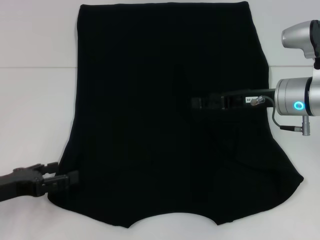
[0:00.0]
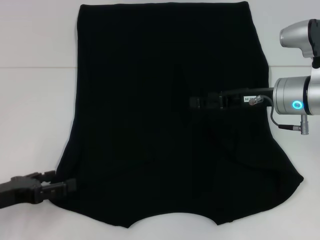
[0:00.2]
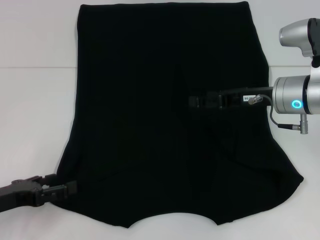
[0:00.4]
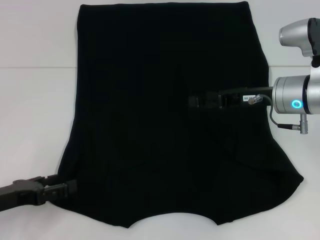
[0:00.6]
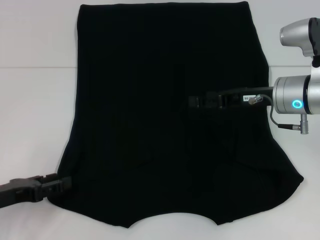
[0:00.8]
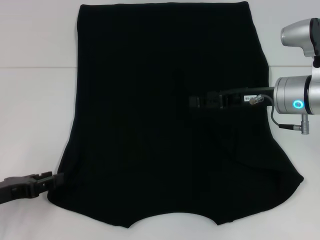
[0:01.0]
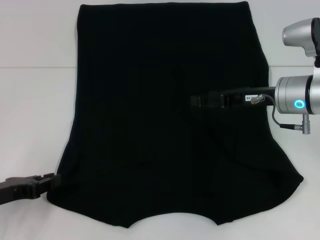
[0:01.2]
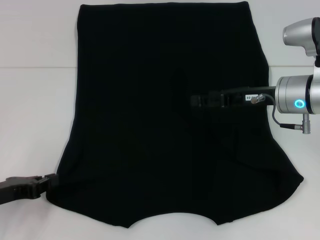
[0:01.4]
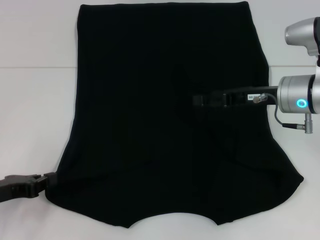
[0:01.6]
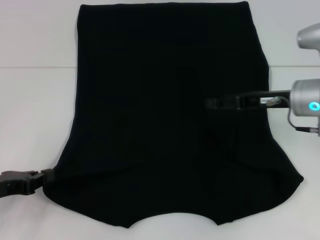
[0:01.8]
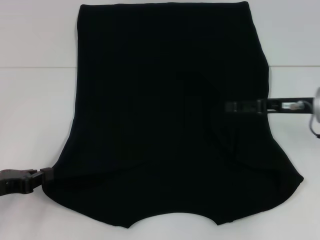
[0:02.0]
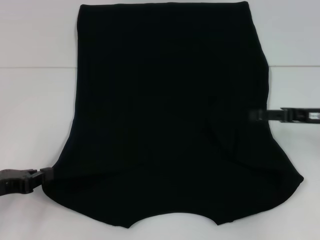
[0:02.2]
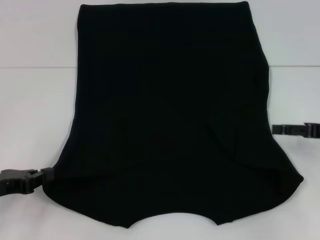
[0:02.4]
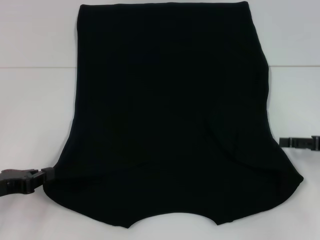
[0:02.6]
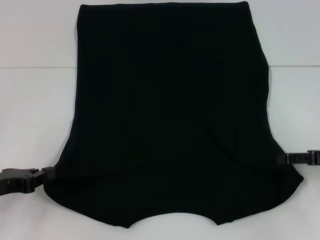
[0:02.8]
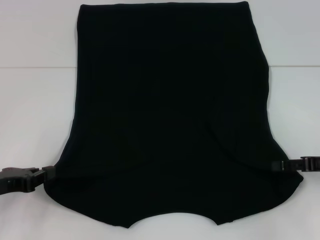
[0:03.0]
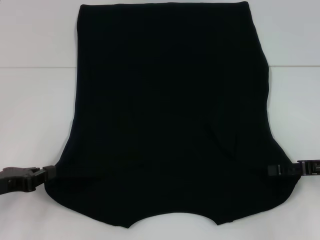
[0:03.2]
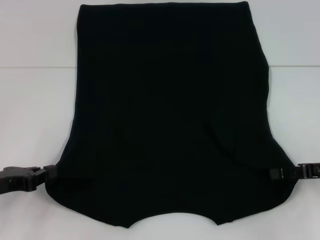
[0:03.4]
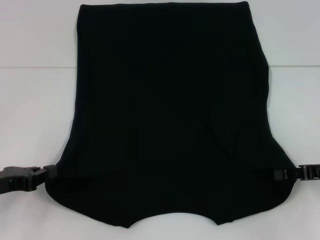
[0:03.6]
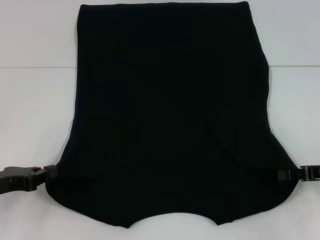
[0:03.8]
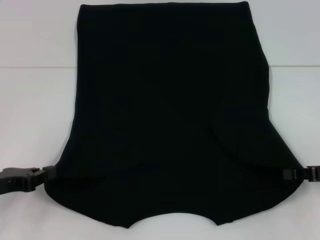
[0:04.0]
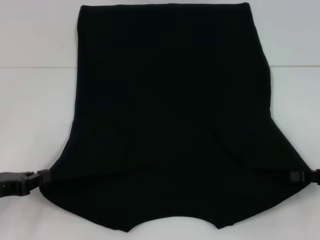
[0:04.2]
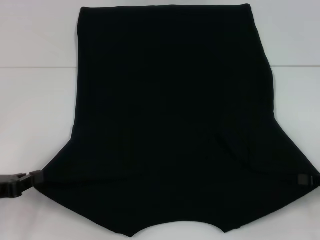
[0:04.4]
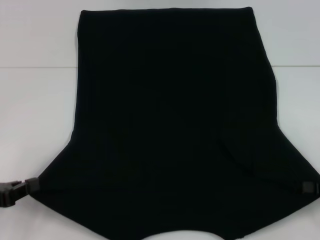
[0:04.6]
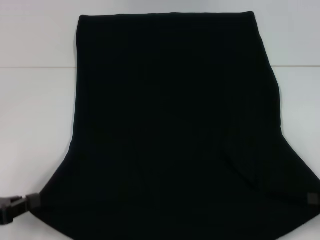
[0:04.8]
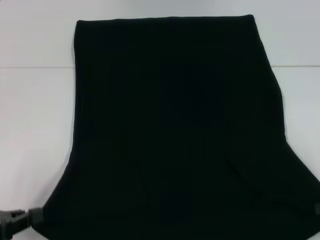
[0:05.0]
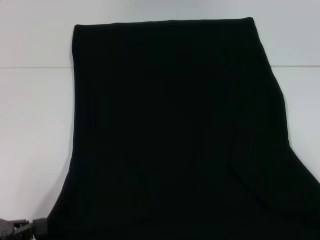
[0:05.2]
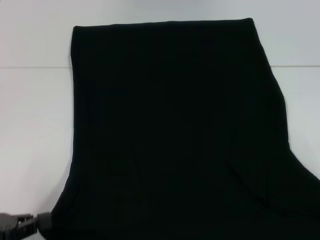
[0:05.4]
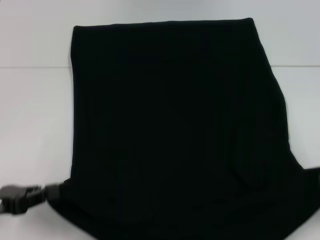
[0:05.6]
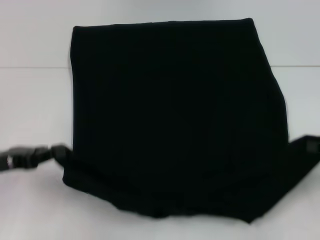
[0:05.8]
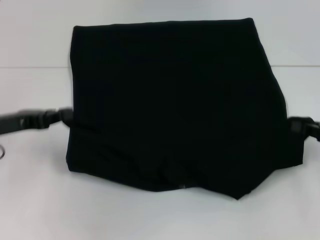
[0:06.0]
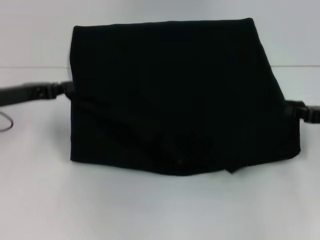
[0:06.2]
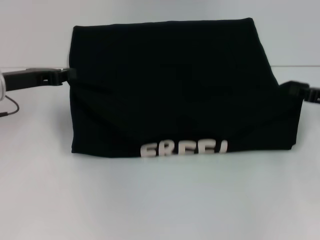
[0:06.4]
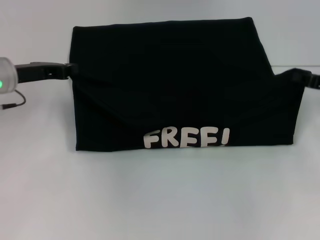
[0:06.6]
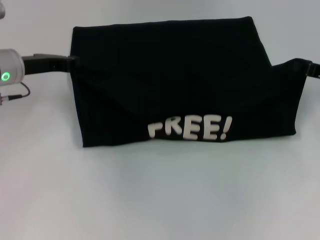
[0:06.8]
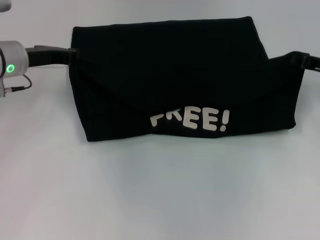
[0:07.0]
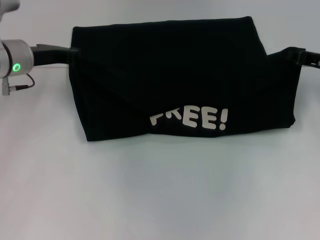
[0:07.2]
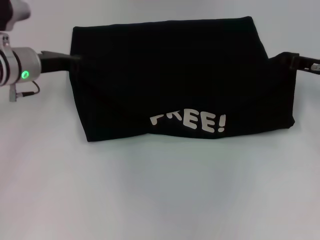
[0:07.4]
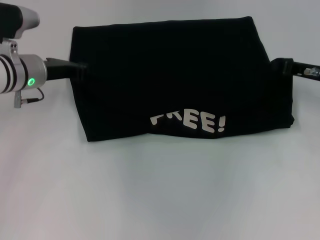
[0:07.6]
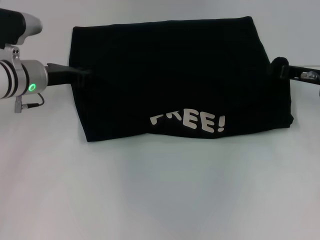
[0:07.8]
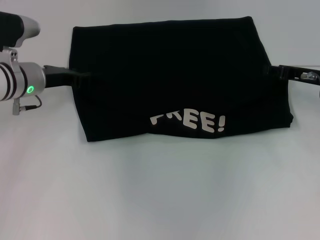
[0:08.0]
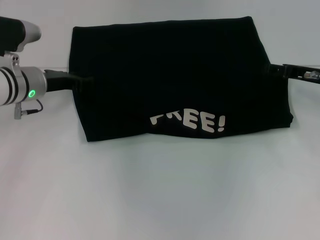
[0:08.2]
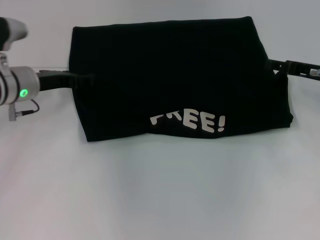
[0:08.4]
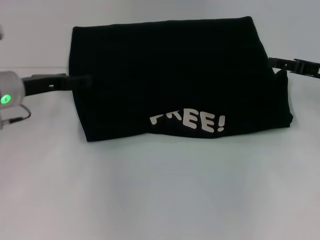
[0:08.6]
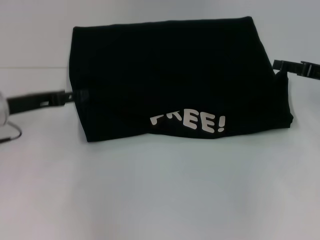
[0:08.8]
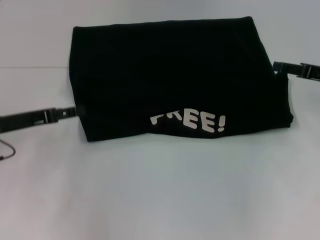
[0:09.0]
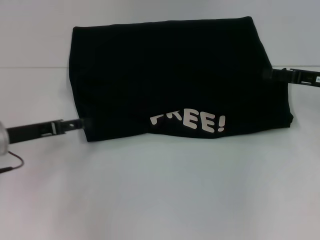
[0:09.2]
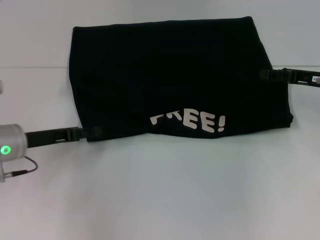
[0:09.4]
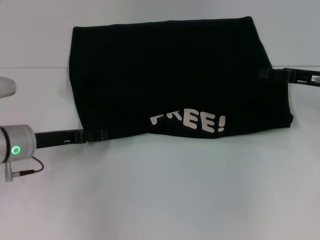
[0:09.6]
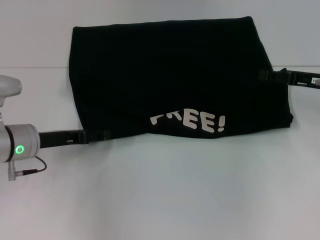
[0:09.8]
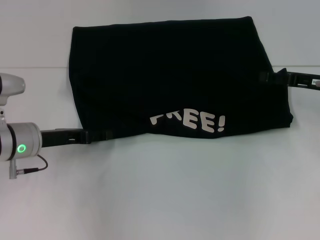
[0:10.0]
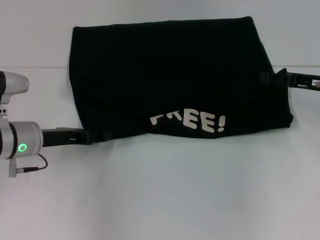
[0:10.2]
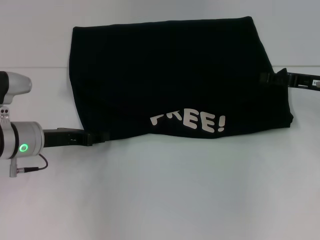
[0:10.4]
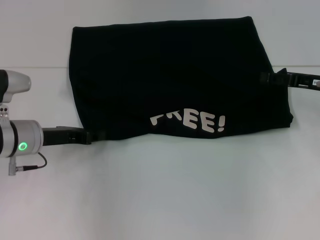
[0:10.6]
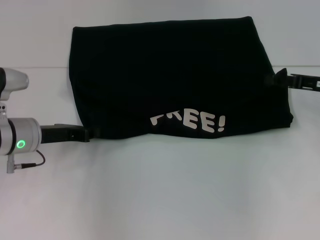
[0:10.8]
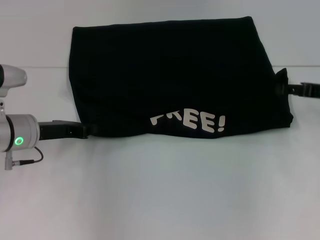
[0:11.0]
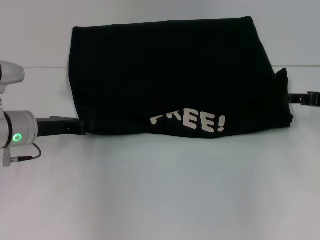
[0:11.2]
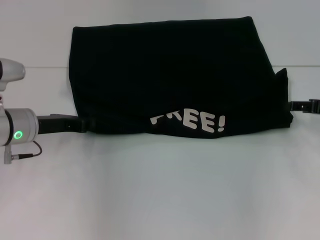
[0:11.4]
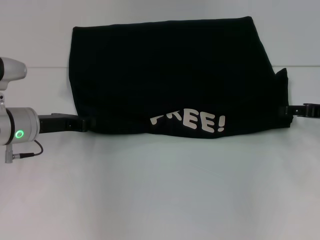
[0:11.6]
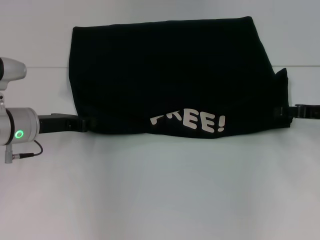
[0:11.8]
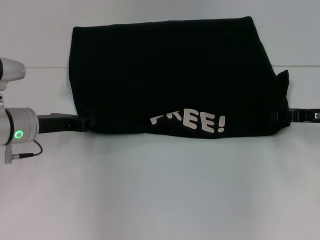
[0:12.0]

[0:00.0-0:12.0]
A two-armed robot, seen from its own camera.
Step, 0:00.0 to 0:02.2: Grab the bottom left corner with your left hand.
Step, 0:02.4 to 0:04.4: Grab the bottom right corner with your right hand.
Step, 0:04.6 to 0:08.4: Fold the clothes with your left hand.
Step, 0:04.6 to 0:08.4: Fold the clothes with your right hand.
0:00.0 to 0:01.6: The left gripper closes.
0:01.6 to 0:03.0: The right gripper goes approximately 15 cm to the right, backward and downward.
0:03.0 to 0:04.4: The right gripper closes up.
0:04.4 to 0:06.0: The left gripper moves forward and upward, approximately 10 cm.
0:06.0 to 0:07.6: The left gripper heads forward and to the right, covering about 15 cm; the right gripper travels forward and to the left by some 15 cm.
0:07.6 to 0:09.0: The left gripper heads backward and to the left, covering about 10 cm, and opens. The right gripper opens up.
0:09.0 to 0:10.4: The left gripper goes about 5 cm to the right.
0:10.4 to 0:12.0: The left gripper closes up.

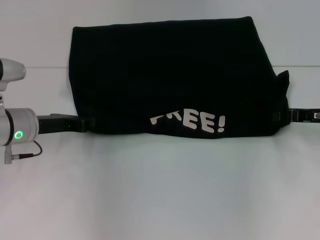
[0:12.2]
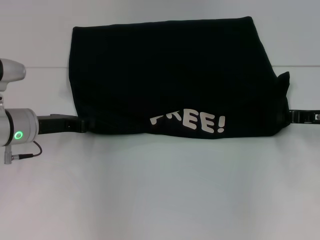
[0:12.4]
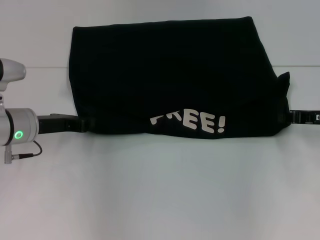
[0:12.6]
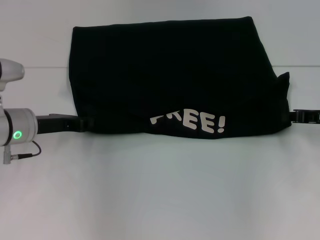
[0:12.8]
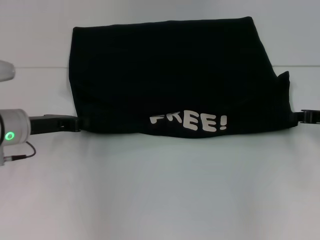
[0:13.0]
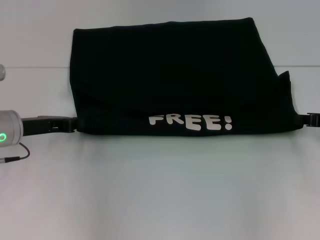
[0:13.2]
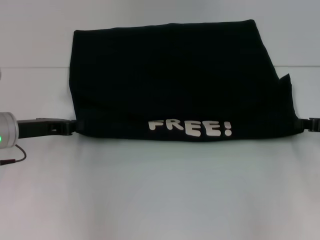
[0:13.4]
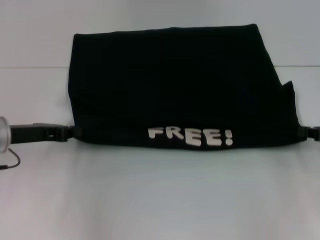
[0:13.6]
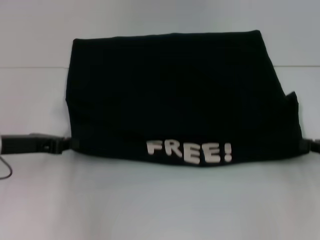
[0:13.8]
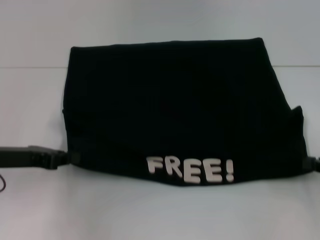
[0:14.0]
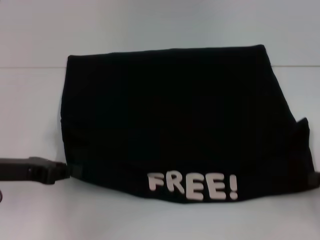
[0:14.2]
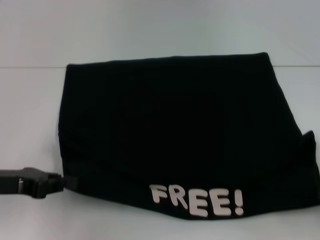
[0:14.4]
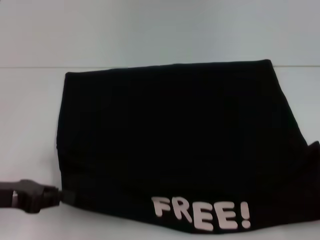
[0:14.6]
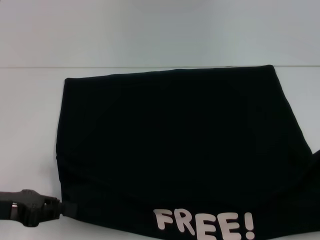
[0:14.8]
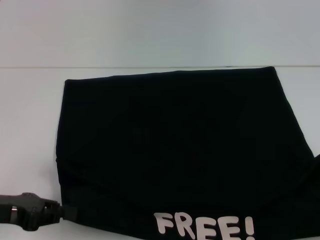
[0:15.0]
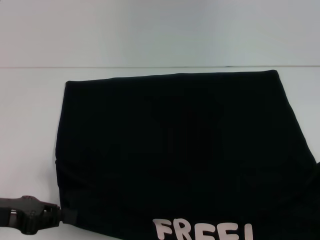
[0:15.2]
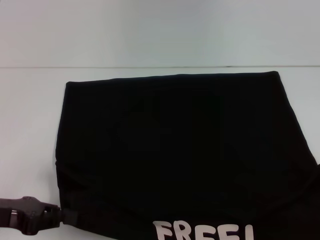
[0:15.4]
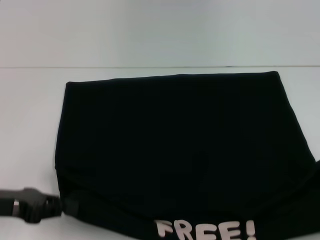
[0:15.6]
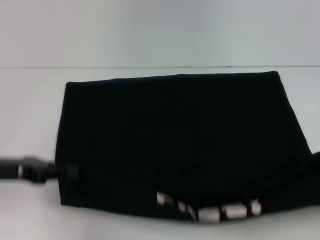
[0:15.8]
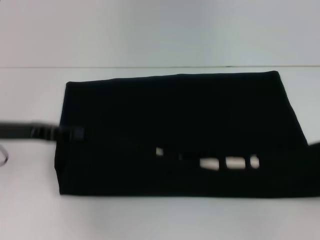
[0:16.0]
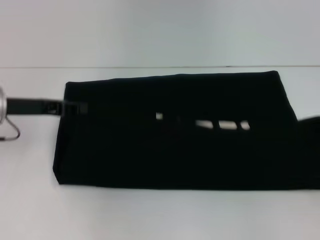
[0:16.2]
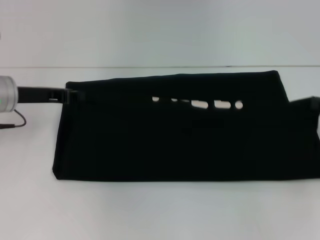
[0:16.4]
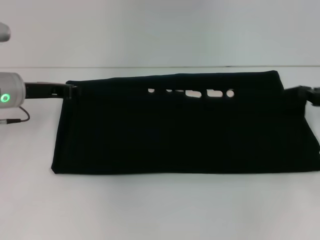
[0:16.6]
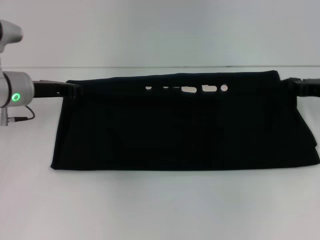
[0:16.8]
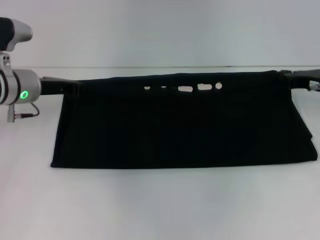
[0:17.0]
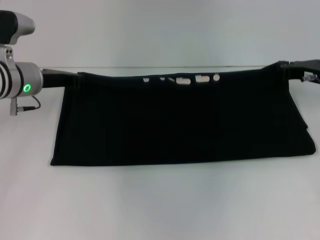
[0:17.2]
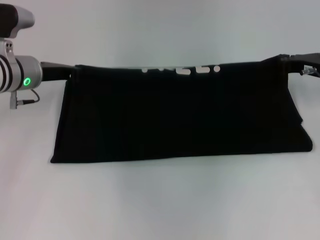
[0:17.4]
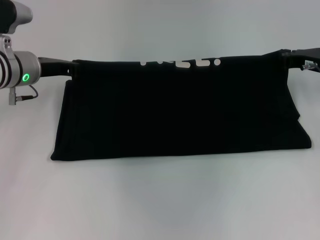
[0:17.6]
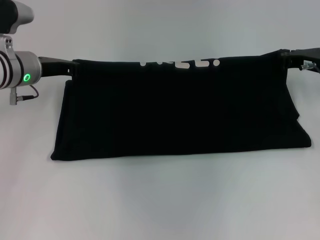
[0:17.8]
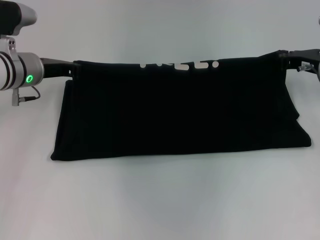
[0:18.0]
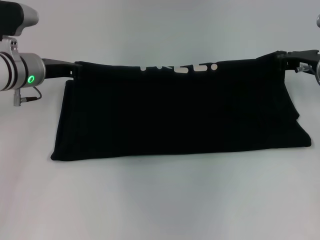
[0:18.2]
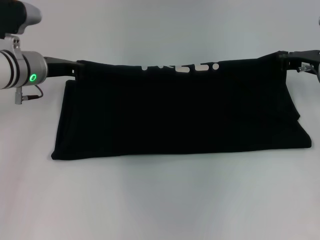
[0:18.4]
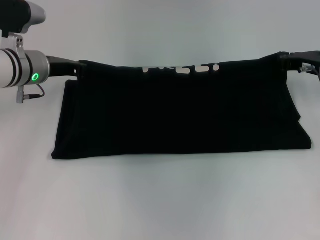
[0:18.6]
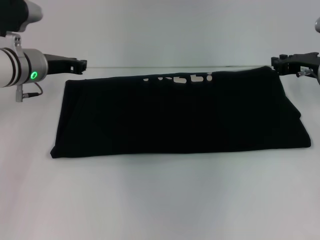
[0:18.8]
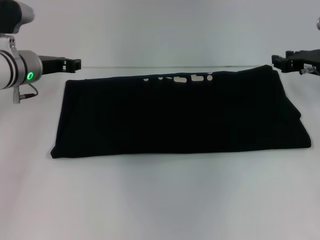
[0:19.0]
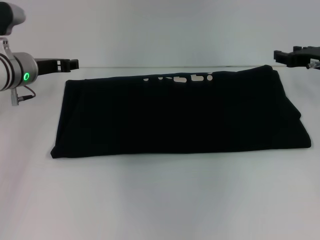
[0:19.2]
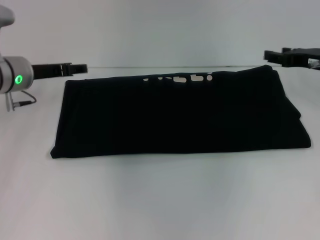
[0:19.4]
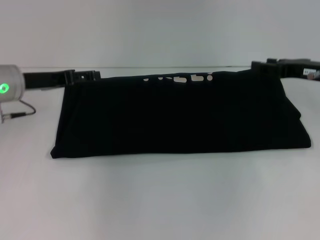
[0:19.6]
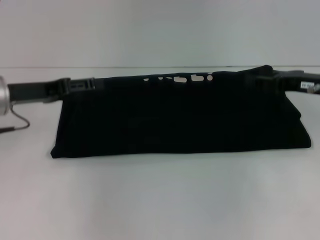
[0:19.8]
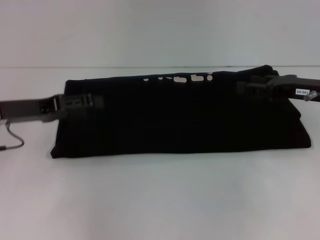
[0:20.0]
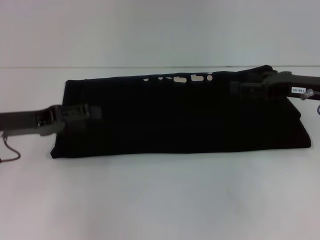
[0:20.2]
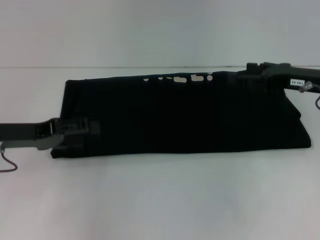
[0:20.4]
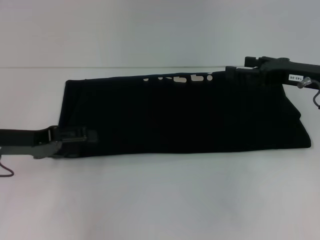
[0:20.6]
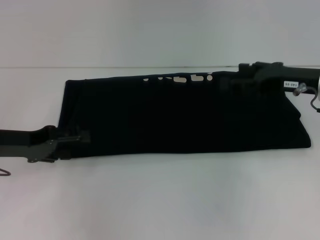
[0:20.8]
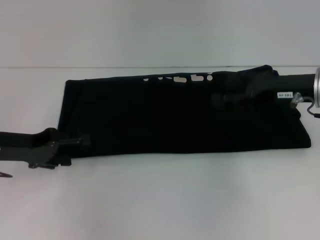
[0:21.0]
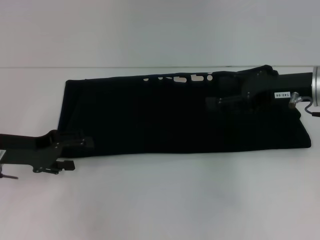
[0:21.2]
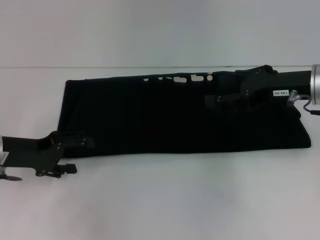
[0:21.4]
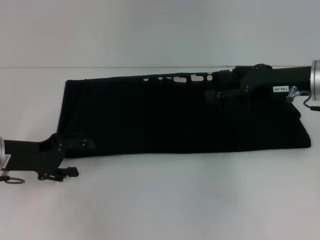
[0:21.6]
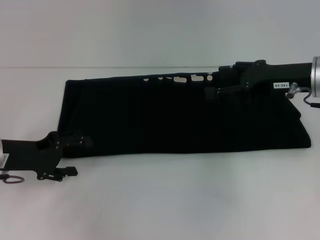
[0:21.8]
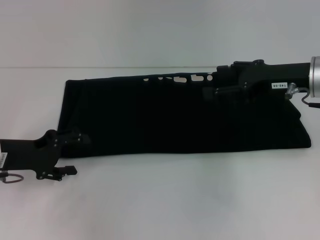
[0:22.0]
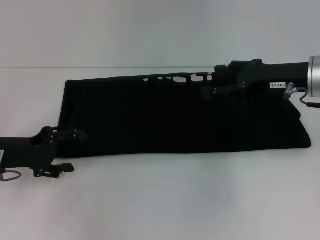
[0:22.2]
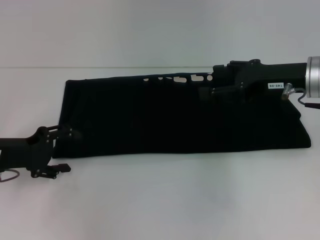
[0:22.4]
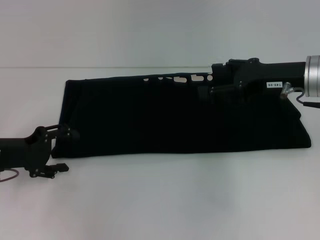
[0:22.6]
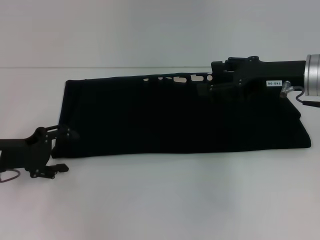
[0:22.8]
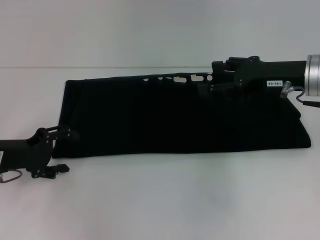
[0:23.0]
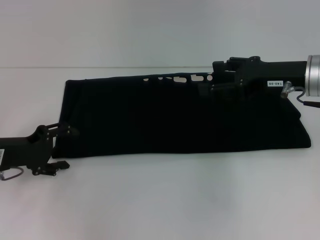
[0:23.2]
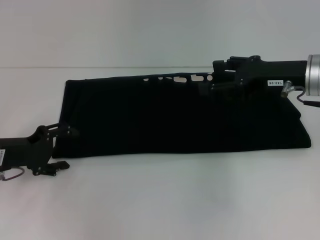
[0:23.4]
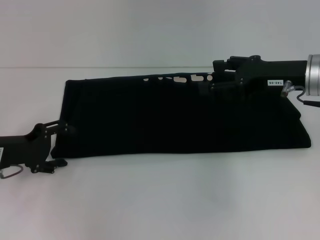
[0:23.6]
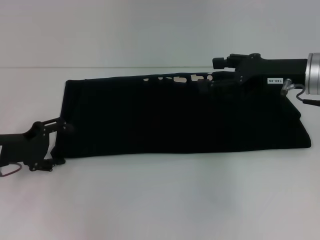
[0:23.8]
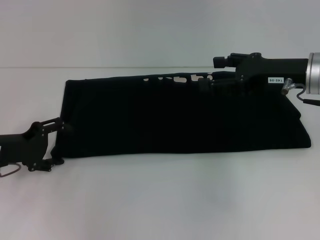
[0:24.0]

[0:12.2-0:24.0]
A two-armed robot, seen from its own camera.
Step, 0:12.2 to 0:15.4: Pull the clothes with your left hand.
Step, 0:12.2 to 0:15.4: Pull the clothes with your right hand.
Step, 0:15.6 to 0:18.8: Fold the clothes with your right hand.
0:12.2 to 0:13.6: The right gripper ends up some 5 cm from where it was.
0:13.6 to 0:15.2: The right gripper shifts some 15 cm backward; the left gripper goes approximately 10 cm backward.
0:15.2 to 0:16.6: The grippers both shift forward by some 20 cm.
0:16.6 to 0:18.2: The right gripper shifts roughly 10 cm to the left and forward.
0:18.2 to 0:19.6: The left gripper shifts by some 5 cm, and opens its fingers; the right gripper opens up.
0:19.6 to 0:21.0: The left gripper goes about 10 cm backward. The right gripper ends up approximately 5 cm from where it was, and opens its fingers.
0:22.6 to 0:24.0: The grippers move only a little.
